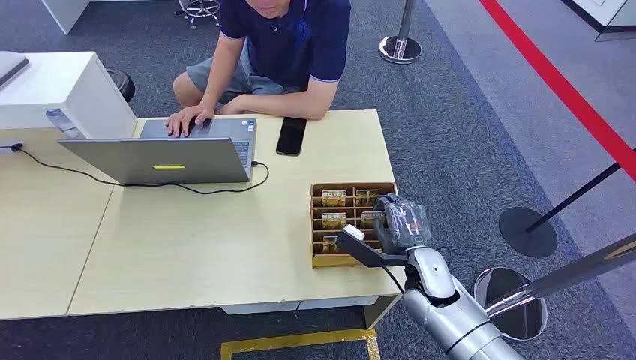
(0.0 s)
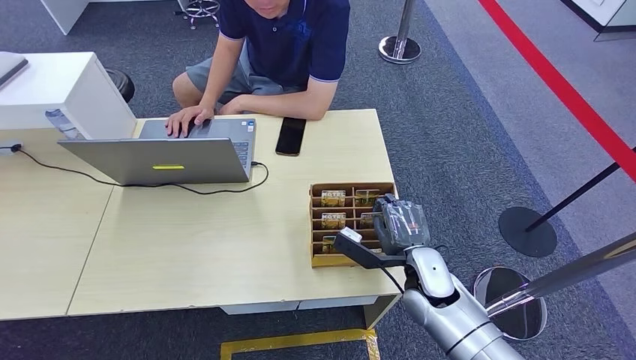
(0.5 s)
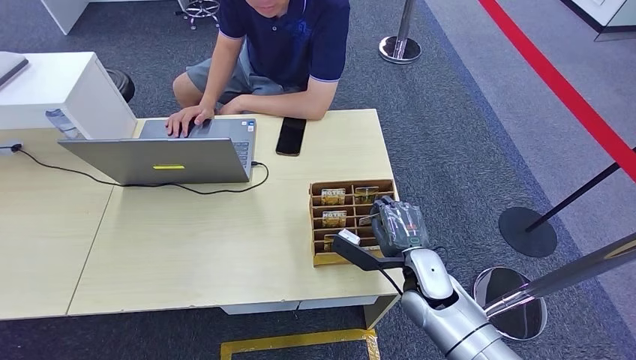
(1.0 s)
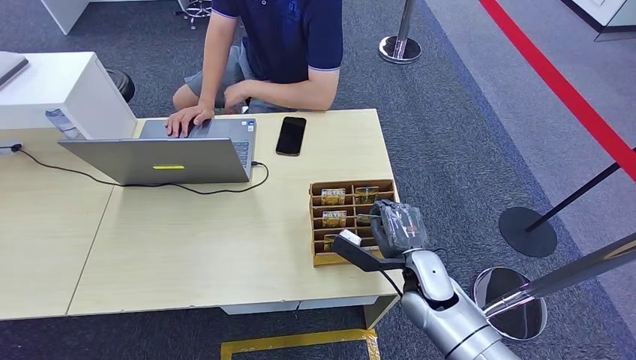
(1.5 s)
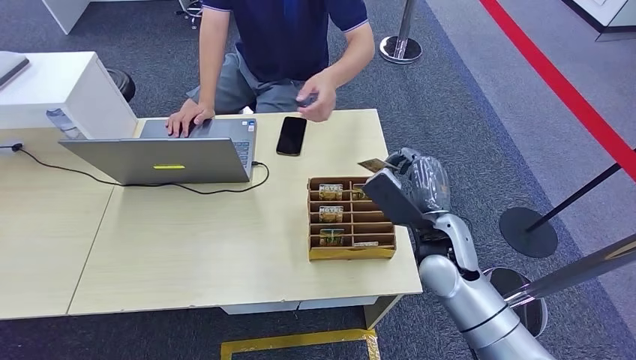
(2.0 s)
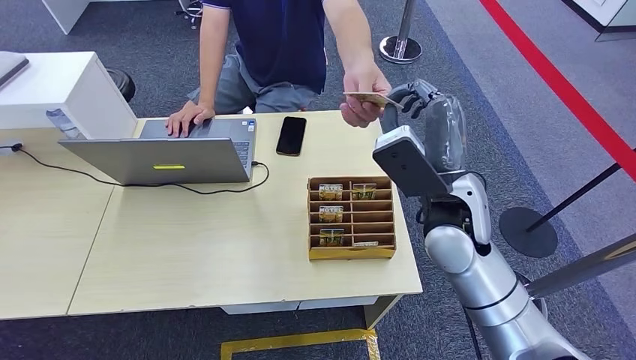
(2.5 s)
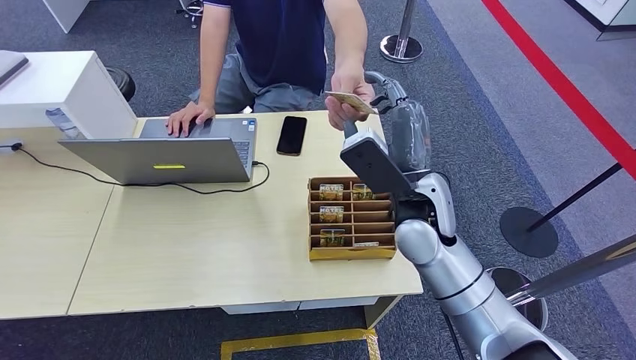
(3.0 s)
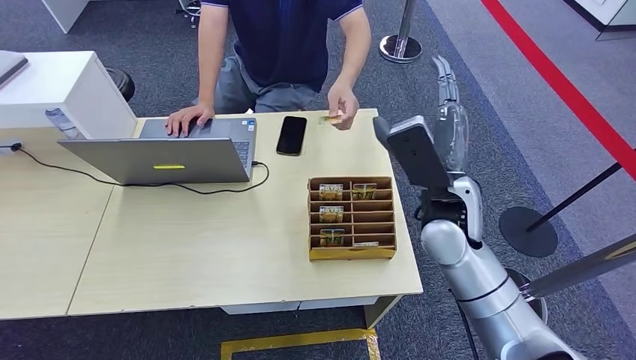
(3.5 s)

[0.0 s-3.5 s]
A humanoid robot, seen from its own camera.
Step, 0.0 to 1.5 s: Pick up the room card from the card holder.
Step, 2.0 to 3.5 s: Hand the room card to the target.
2.0 to 3.5 s: The right hand moves upward, some 10 cm.

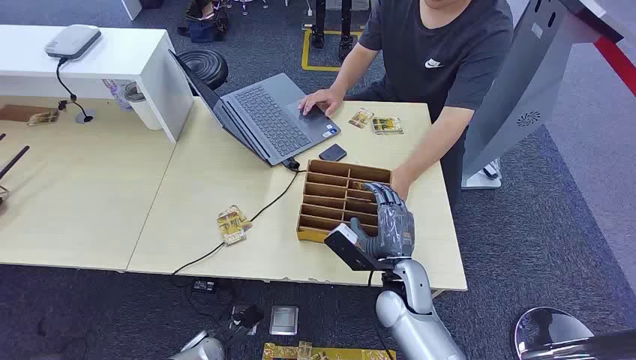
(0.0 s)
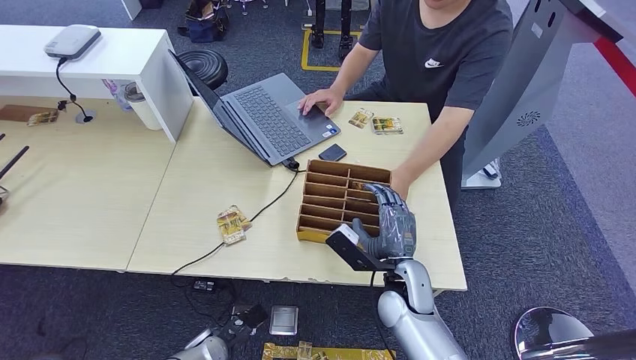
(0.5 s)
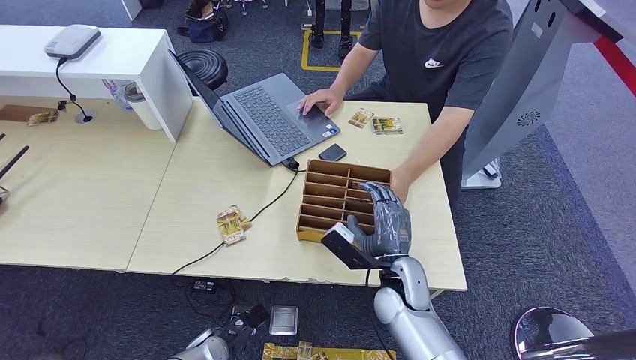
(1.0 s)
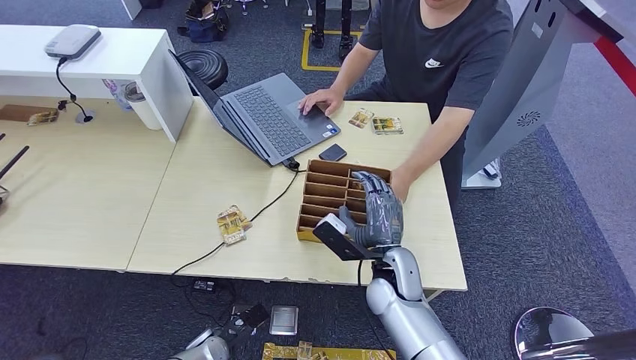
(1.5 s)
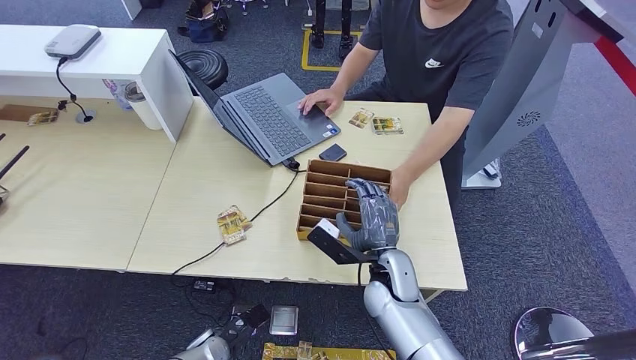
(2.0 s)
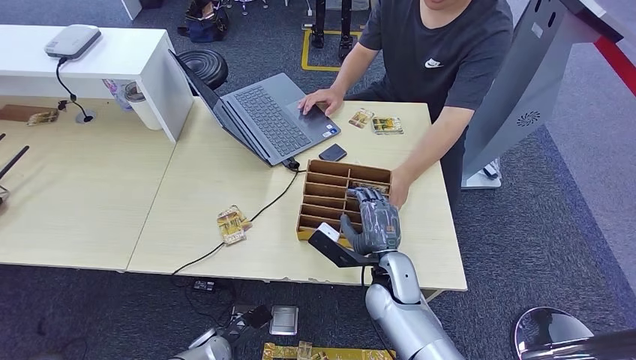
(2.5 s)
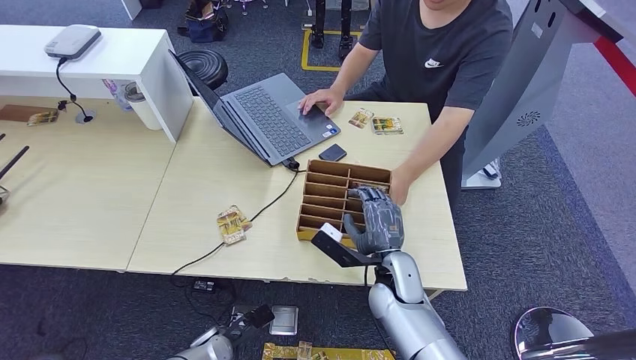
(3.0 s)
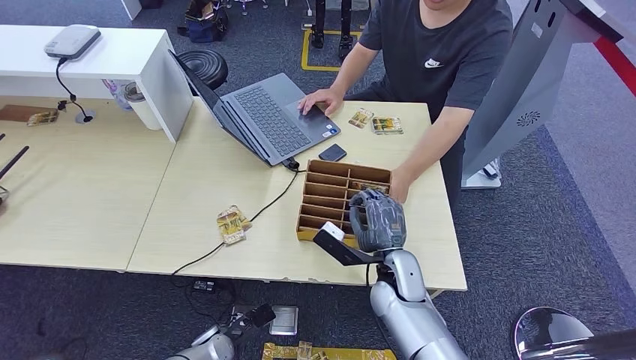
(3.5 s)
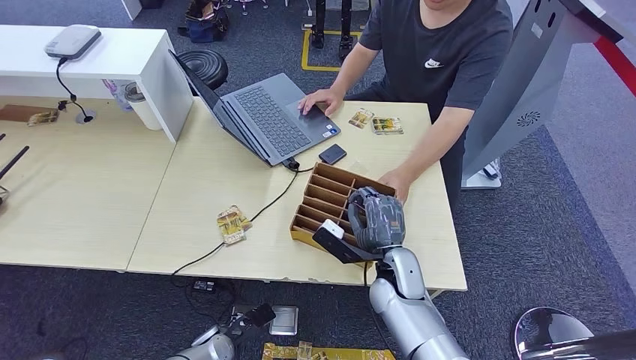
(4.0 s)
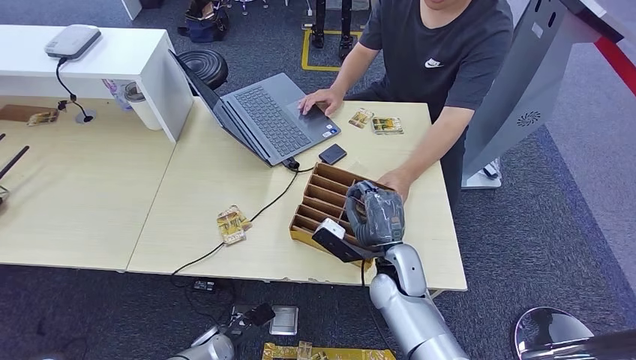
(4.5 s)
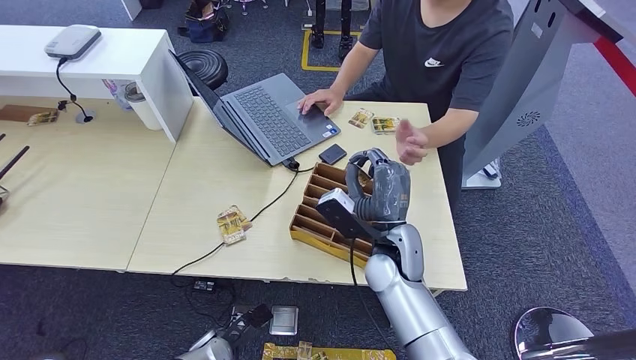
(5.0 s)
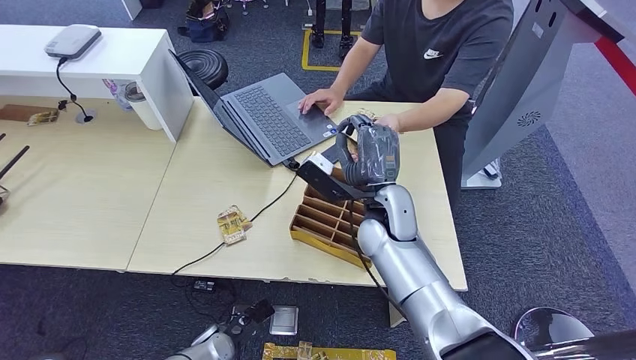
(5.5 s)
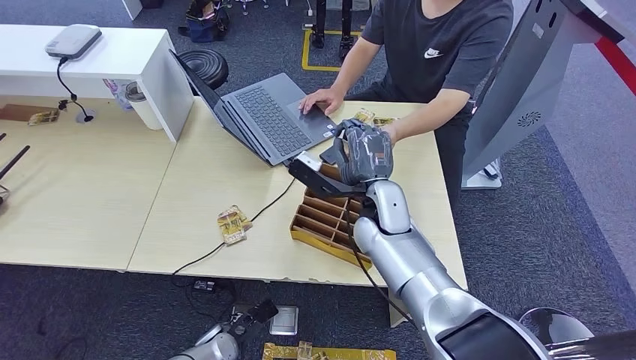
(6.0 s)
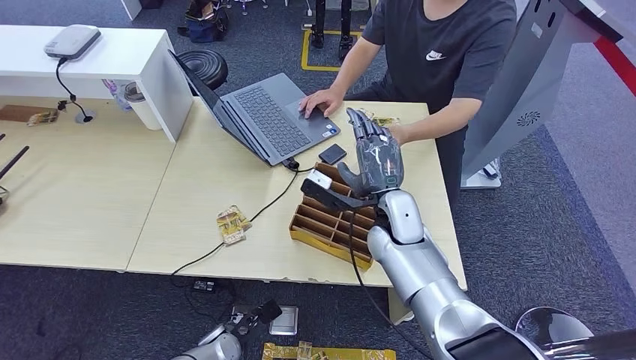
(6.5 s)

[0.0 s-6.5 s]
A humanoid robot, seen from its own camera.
Step, 0.0 to 4.0 s: Pick up the room card from the card holder.
Step, 4.5 to 6.5 s: Hand the room card to the target.
2.0 to 4.5 s: The hands stay close to where they were, moving slightly.
4.5 to 6.5 s: The right hand is displaced upward and forward by about 10 cm.
